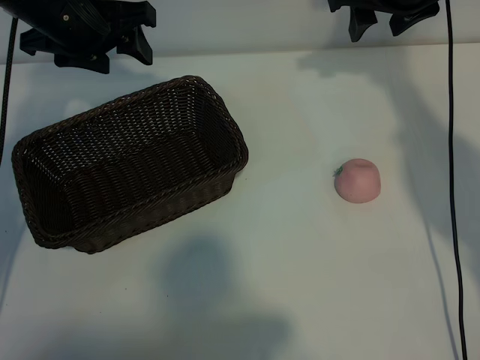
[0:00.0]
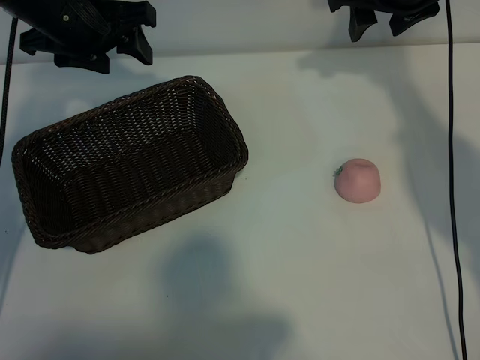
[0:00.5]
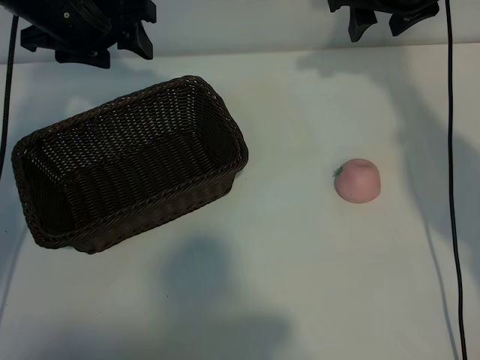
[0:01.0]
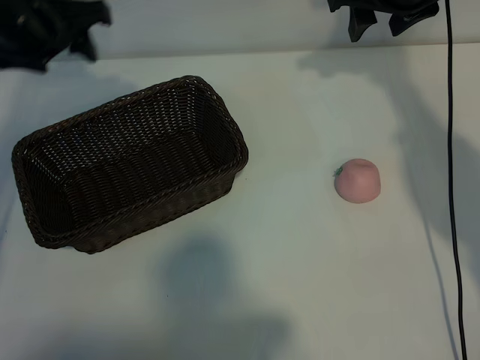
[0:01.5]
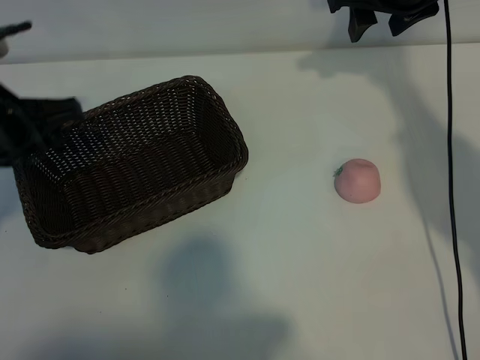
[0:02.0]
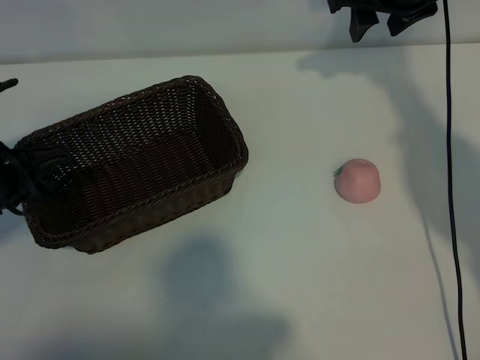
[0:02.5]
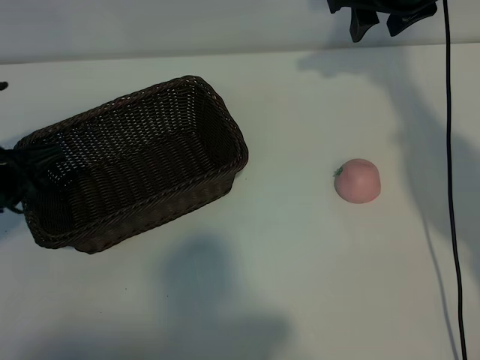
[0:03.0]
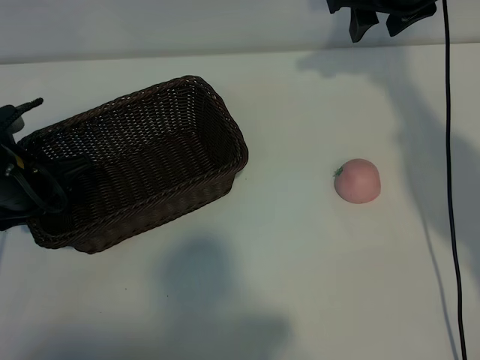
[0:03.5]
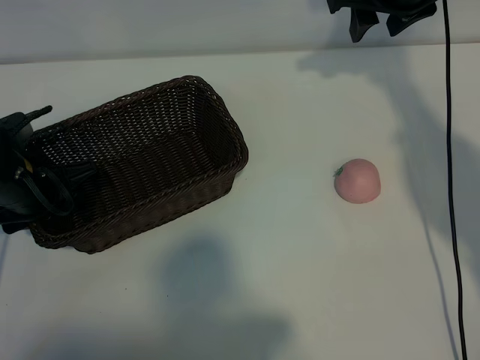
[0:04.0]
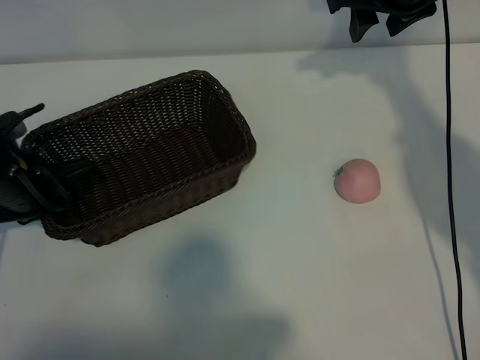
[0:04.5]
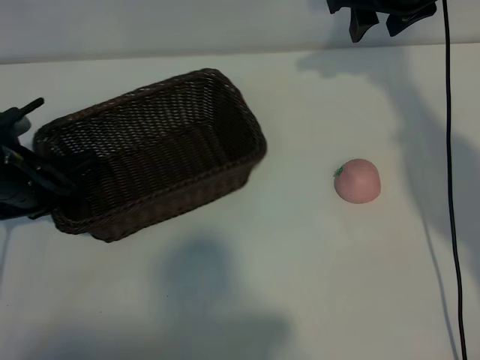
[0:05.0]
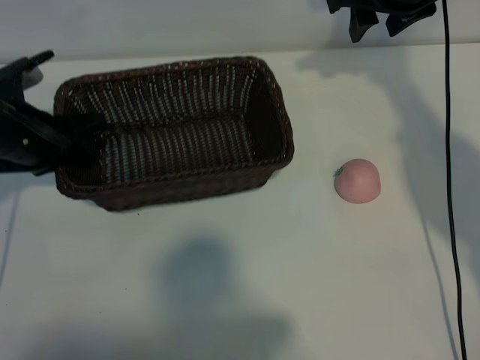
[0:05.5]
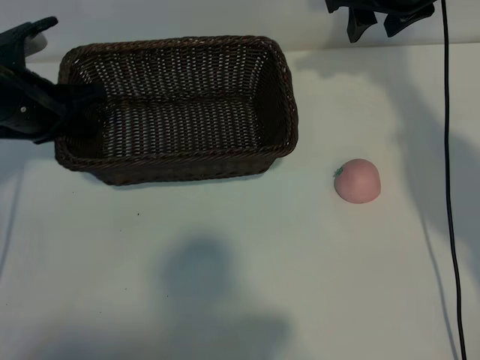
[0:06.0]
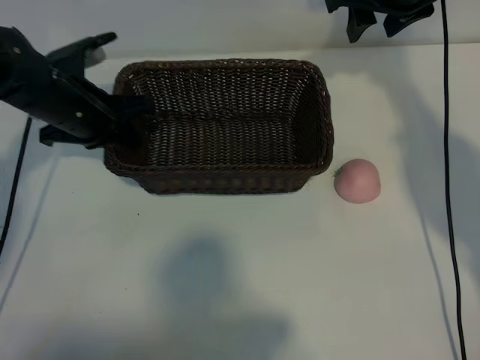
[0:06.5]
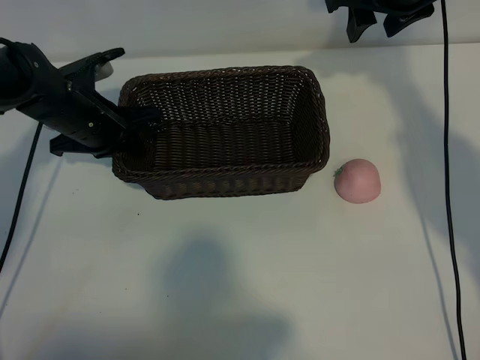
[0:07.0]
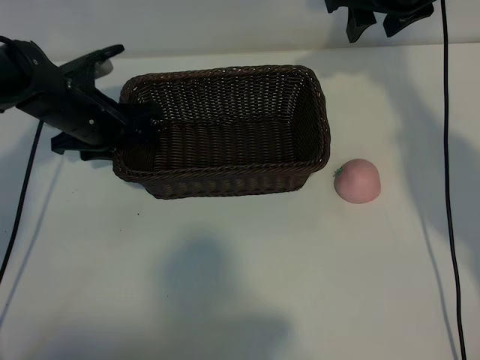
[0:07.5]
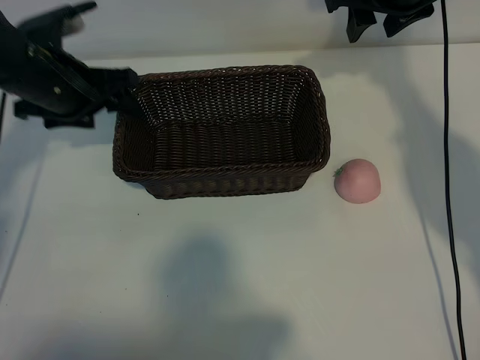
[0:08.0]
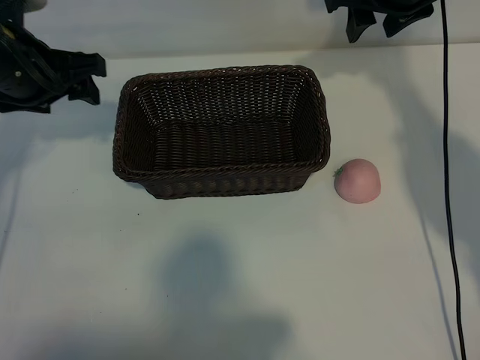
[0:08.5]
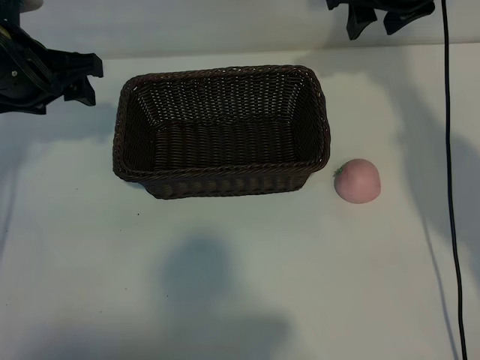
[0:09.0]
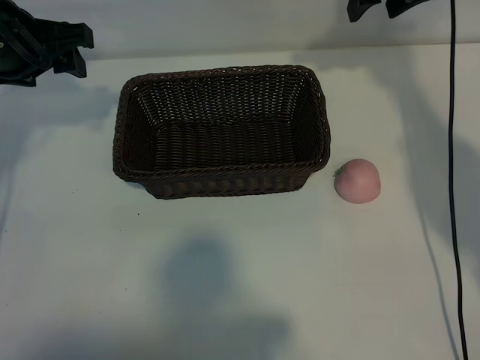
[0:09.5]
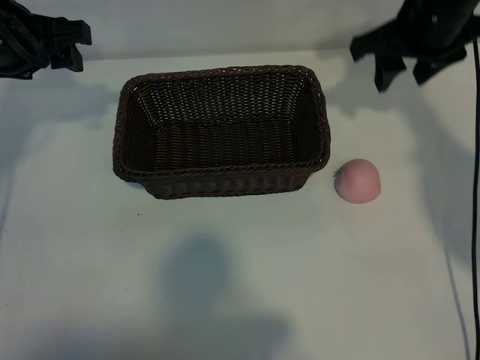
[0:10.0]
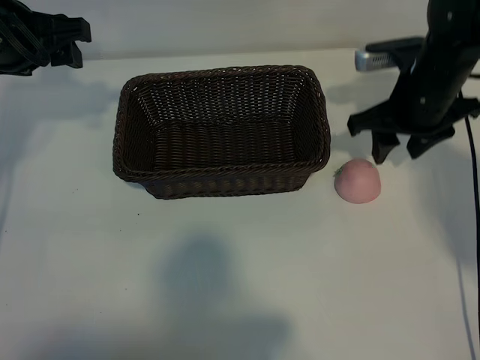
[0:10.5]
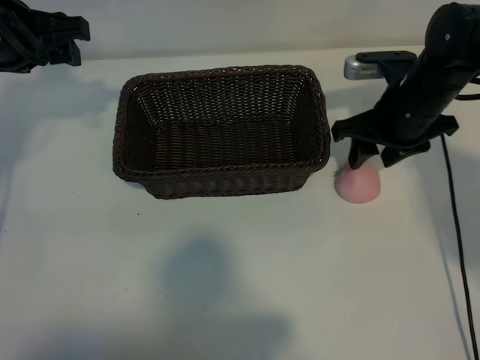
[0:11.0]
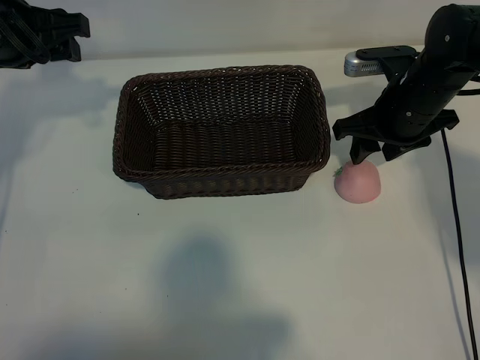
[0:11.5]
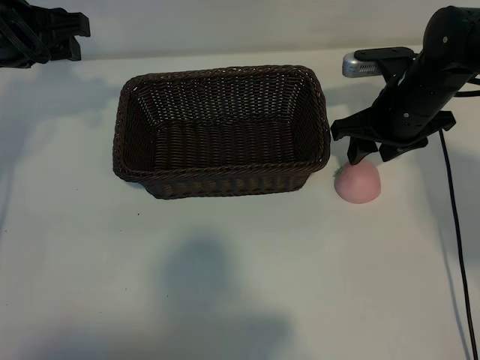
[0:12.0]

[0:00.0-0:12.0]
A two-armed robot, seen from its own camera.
Task of the whole recording: pick up the peach and put it into the basket.
Step, 0:01.0 to 0:04.0: Grasp the basket with left gripper.
Step, 0:05.0 to 0:07.5: Place the basket in the center of view with left gripper.

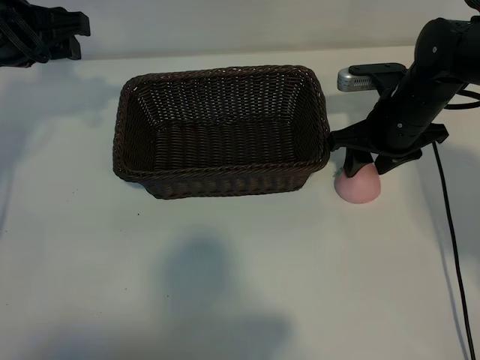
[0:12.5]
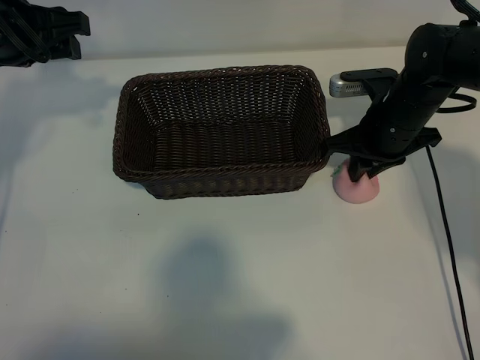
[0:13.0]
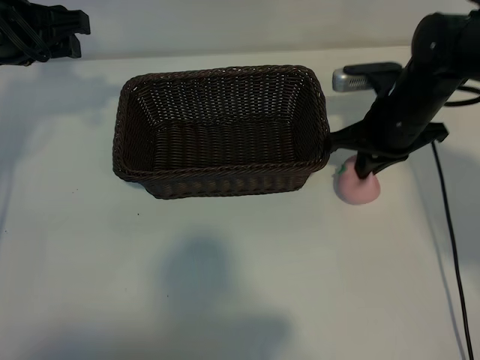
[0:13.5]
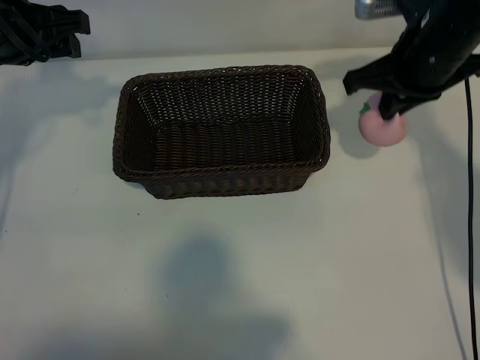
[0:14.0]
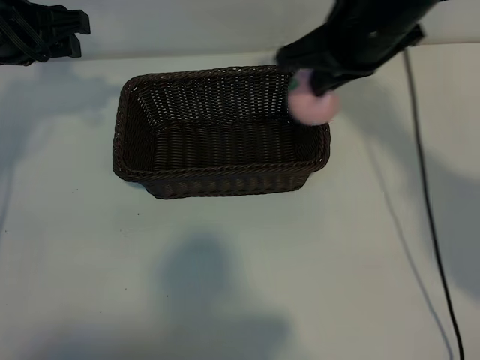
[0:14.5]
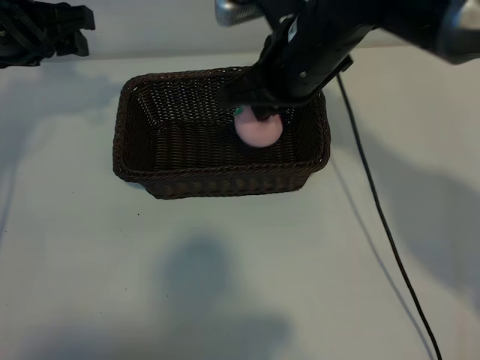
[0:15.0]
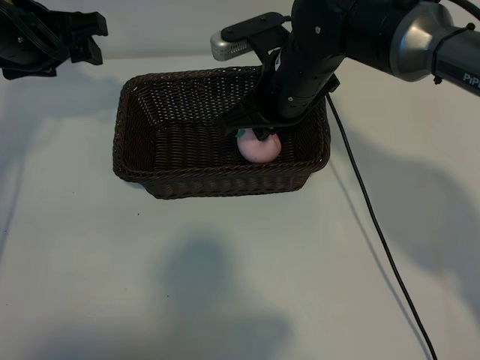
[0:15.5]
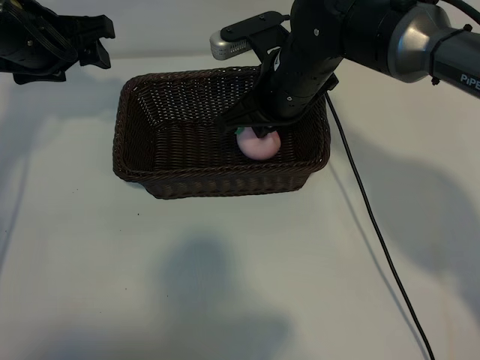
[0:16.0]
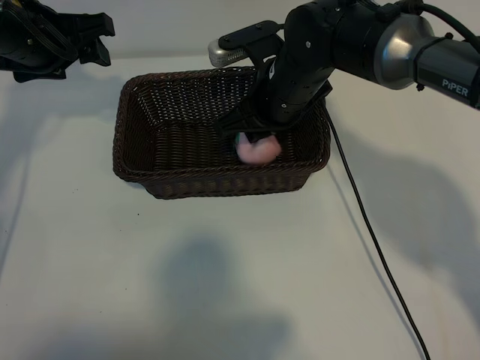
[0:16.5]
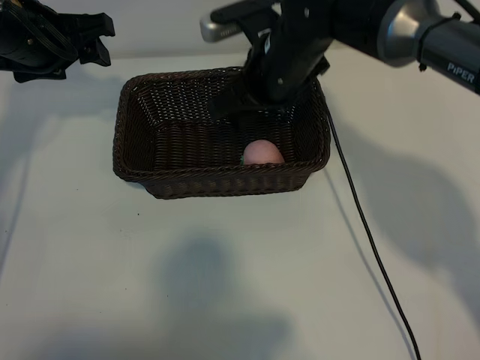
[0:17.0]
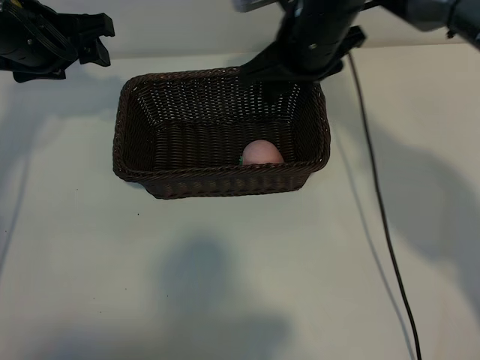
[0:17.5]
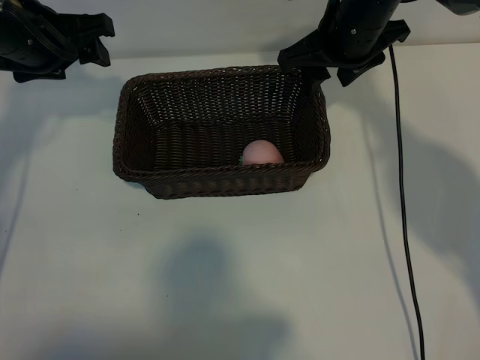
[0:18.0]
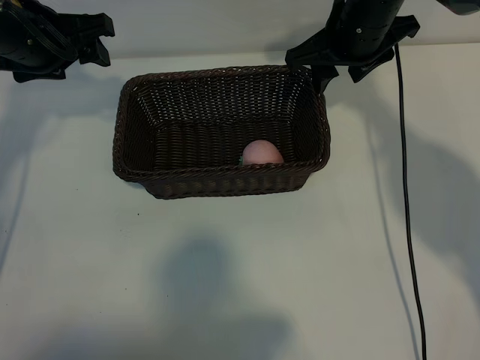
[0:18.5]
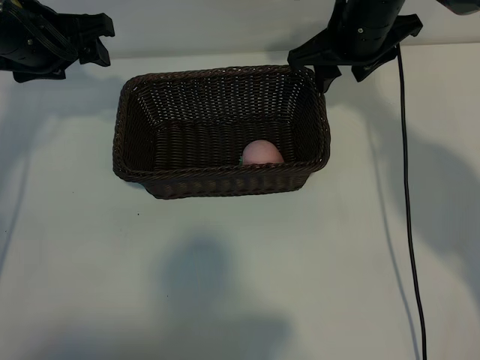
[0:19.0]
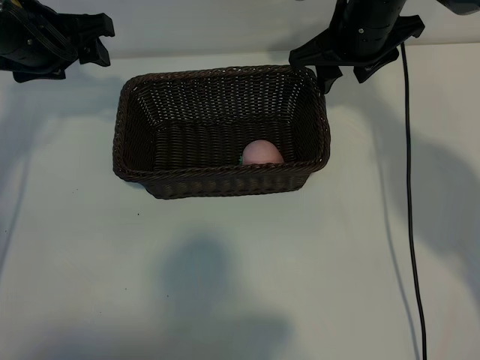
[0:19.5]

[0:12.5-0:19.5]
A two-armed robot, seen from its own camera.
Task of the whole recording: pick up the peach and put it into the basket.
Step, 0:13.5 to 0:16.5: Place the peach in the basket with right gripper.
